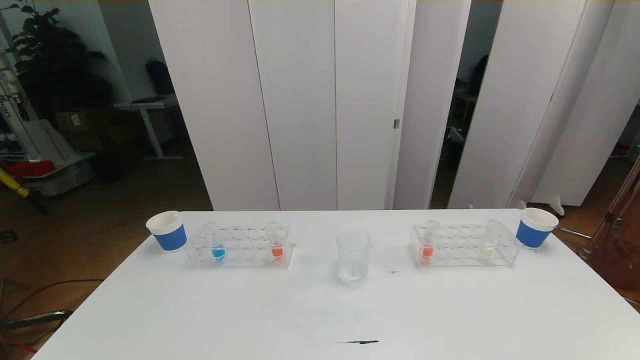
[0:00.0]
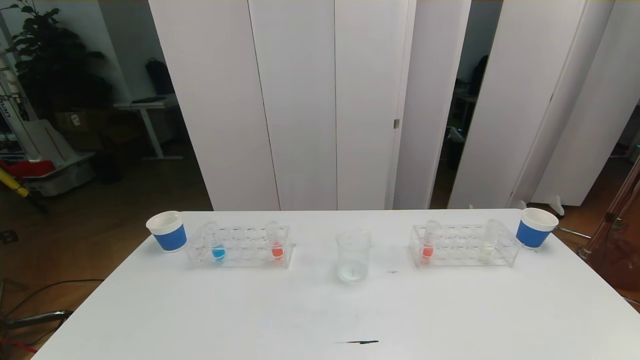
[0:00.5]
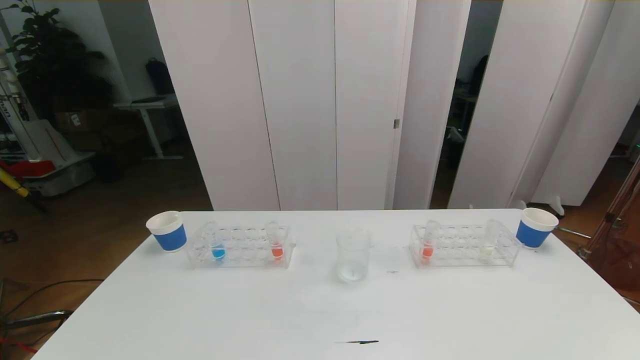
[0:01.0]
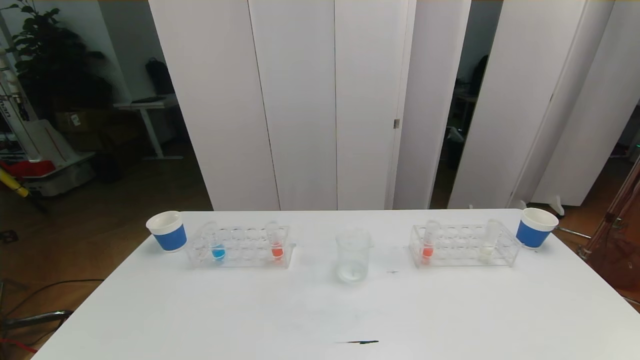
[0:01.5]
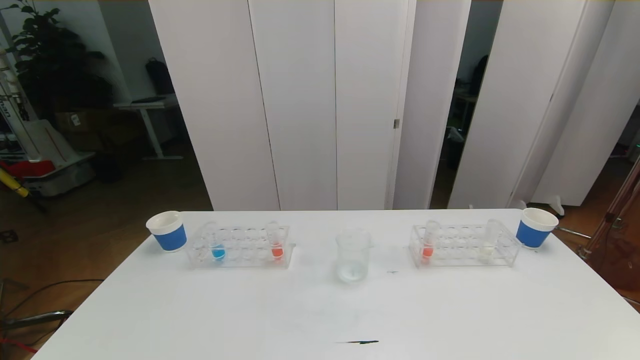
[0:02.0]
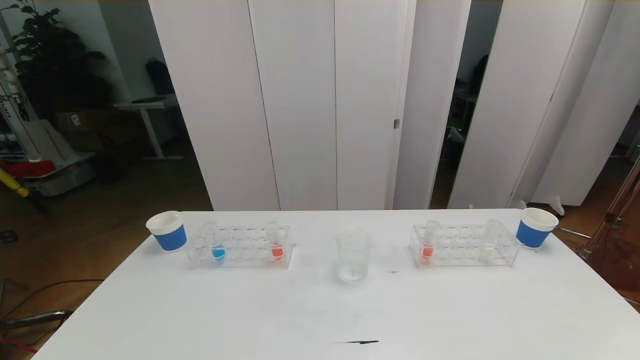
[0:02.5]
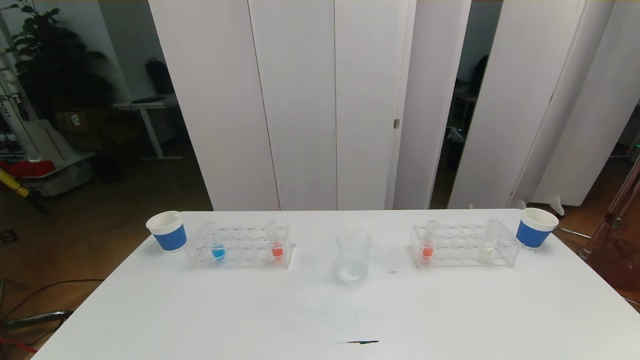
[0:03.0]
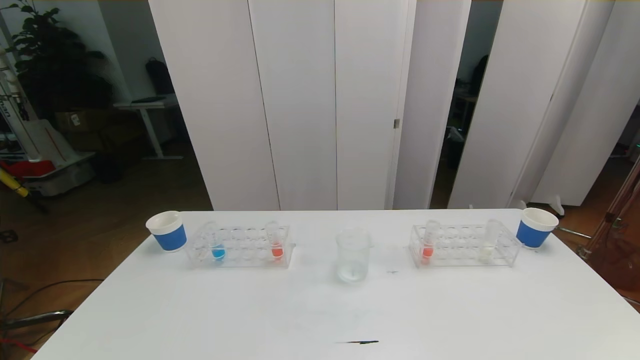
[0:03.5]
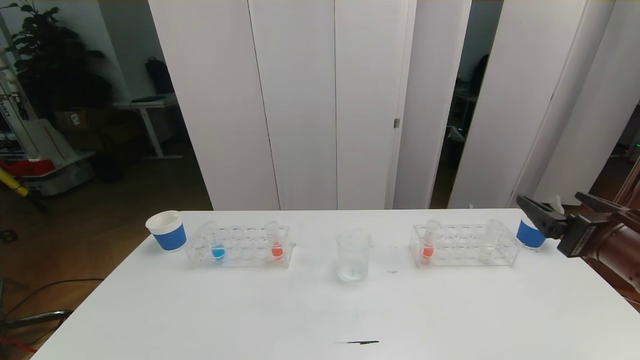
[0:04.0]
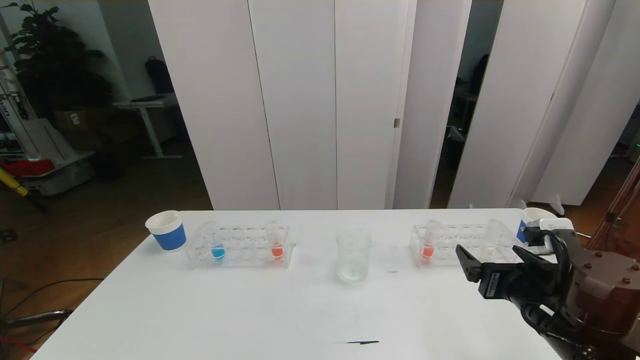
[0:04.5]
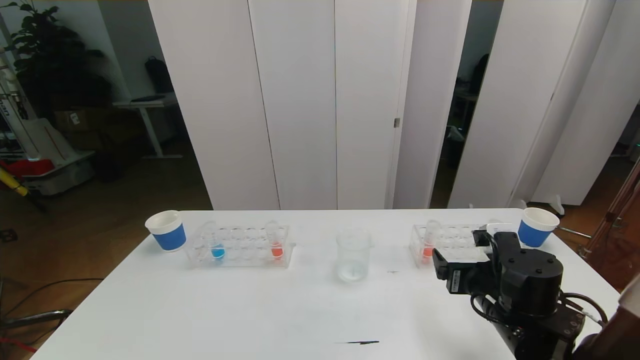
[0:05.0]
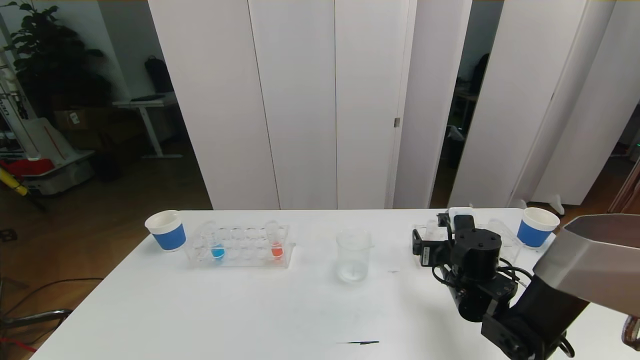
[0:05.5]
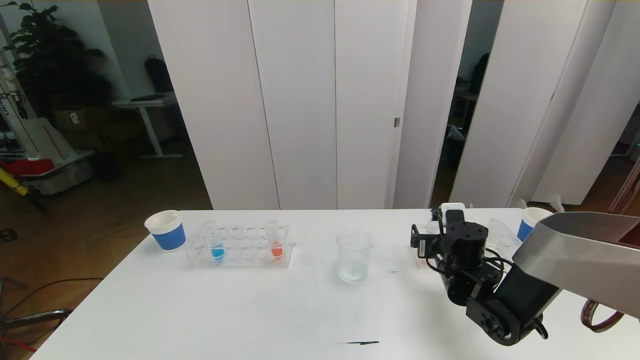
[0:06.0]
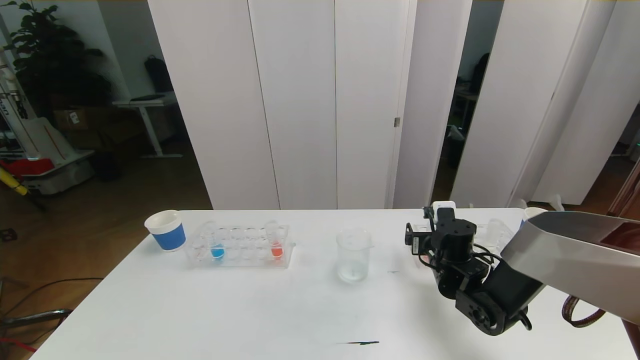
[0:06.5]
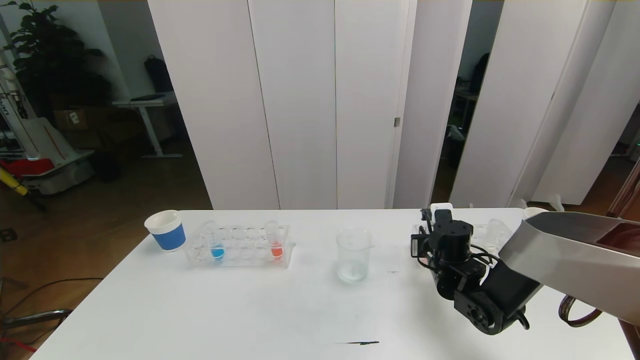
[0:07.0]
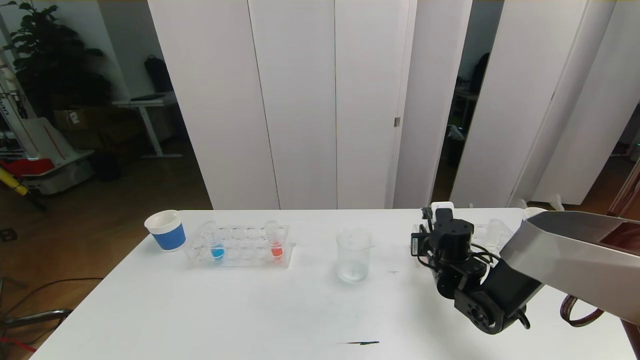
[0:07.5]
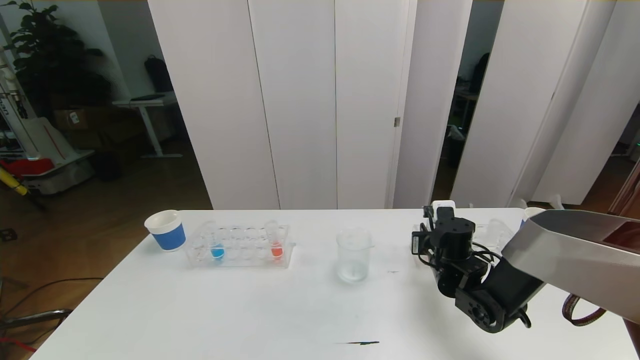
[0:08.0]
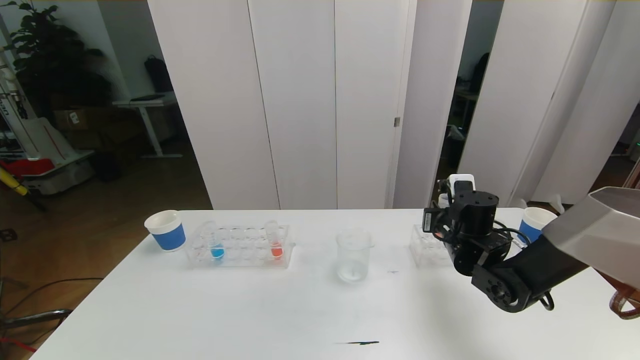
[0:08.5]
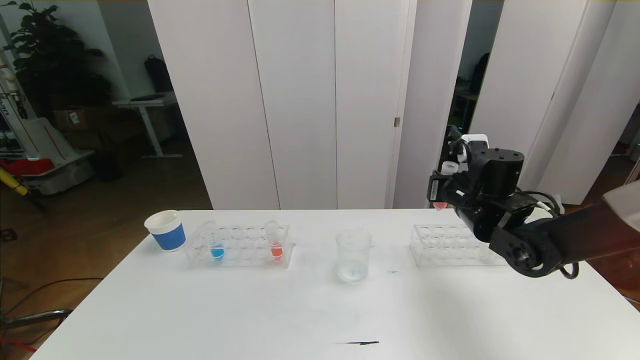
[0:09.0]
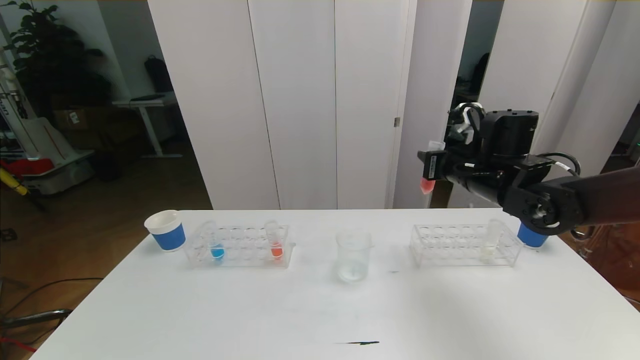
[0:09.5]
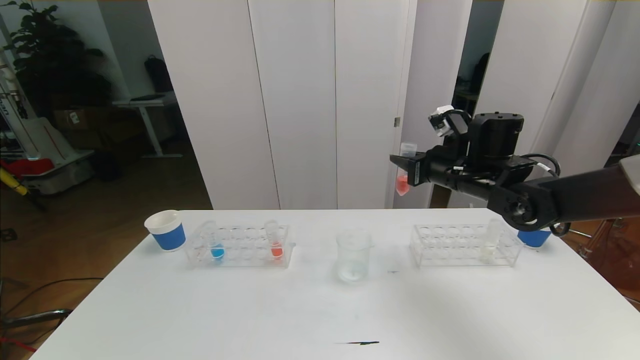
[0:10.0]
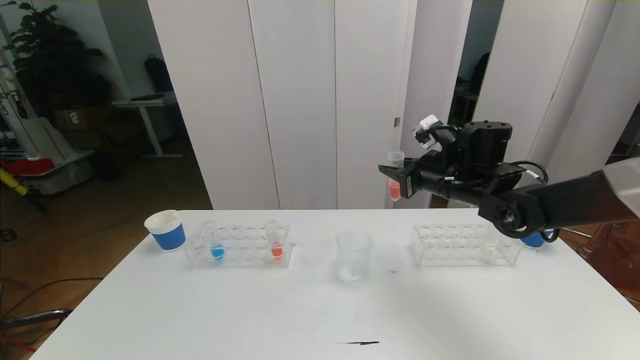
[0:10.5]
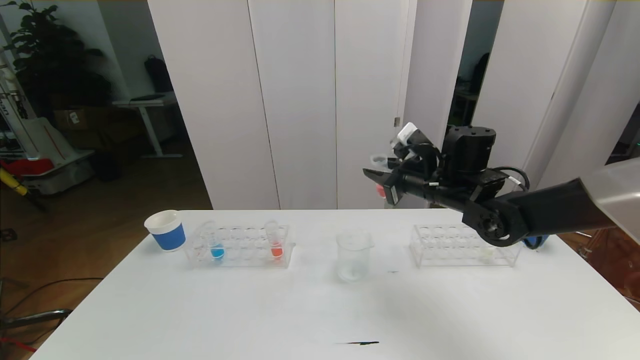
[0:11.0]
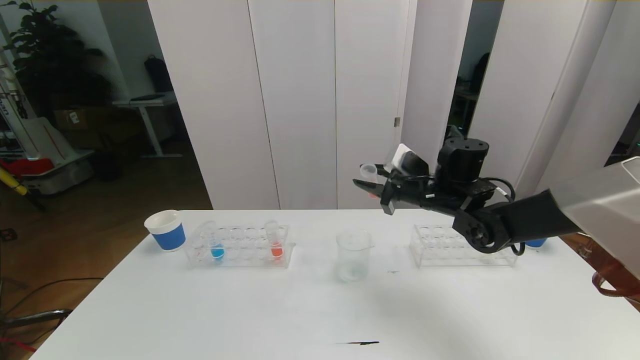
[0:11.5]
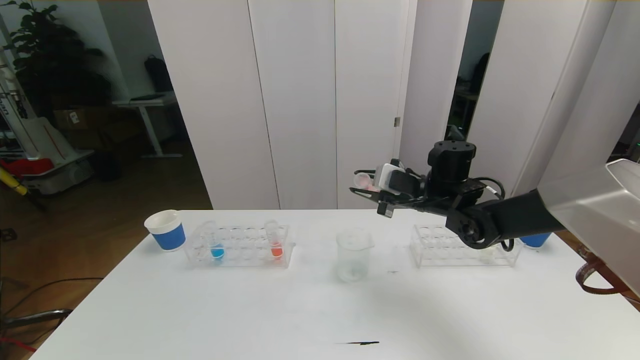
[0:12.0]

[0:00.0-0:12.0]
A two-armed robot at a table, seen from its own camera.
Task of the whole recording: pick up the test tube with red pigment the test tube with blue pigment and the test tube with white pigment by grippers and pour them into the beaker.
0:00.0 to 0:02.0: Both grippers stay about where they are.
0:02.0 to 0:04.0: The right gripper heads forward and upward, covering roughly 25 cm.
0:04.0 to 0:06.0: The right gripper moves forward, downward and to the left, about 25 cm.
0:06.0 to 0:08.0: The right gripper closes its fingers.
0:08.0 to 0:10.0: The right gripper goes about 15 cm upward.
0:10.0 to 0:12.0: The right gripper ends up approximately 5 cm from where it was.

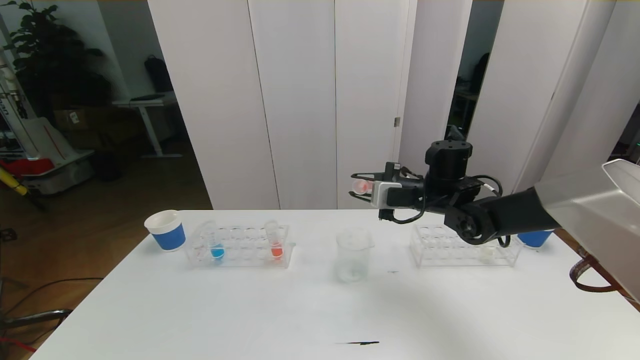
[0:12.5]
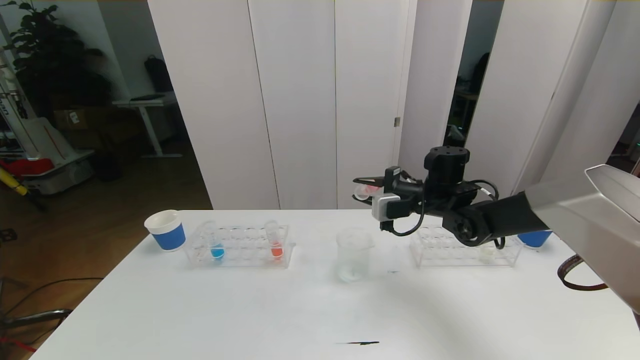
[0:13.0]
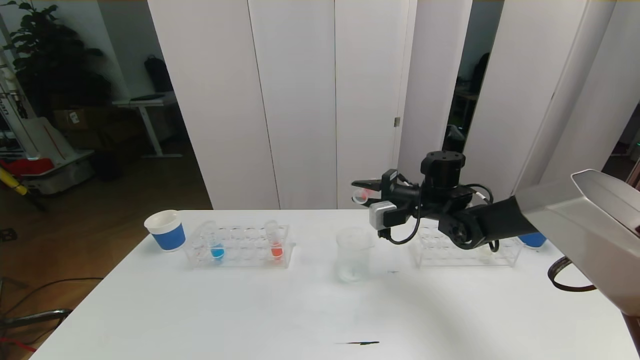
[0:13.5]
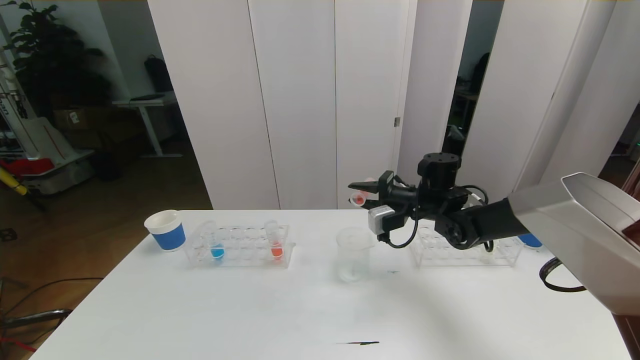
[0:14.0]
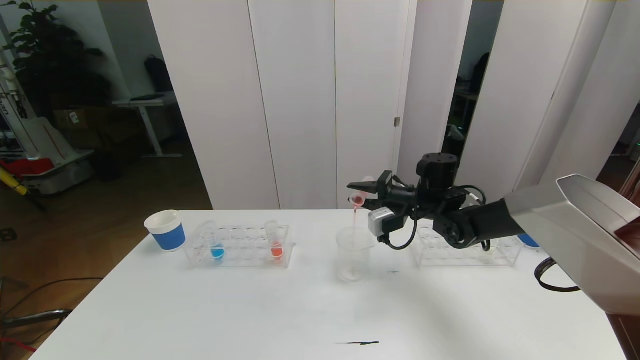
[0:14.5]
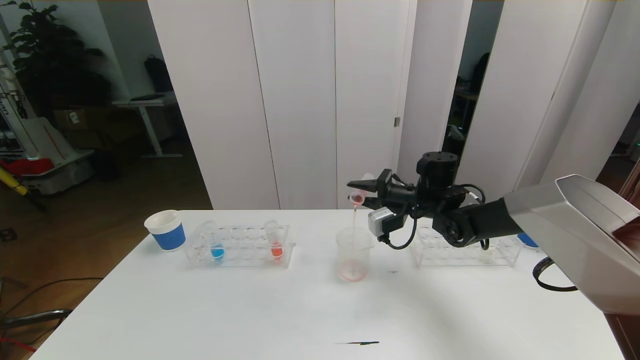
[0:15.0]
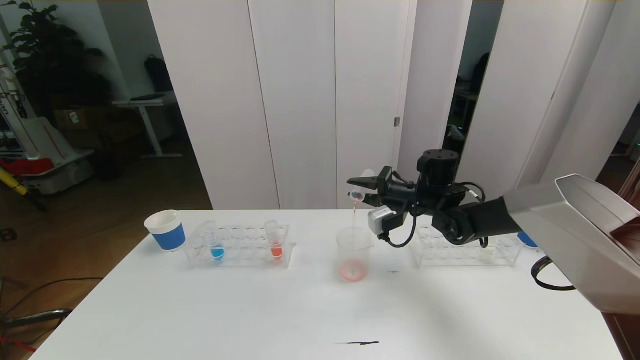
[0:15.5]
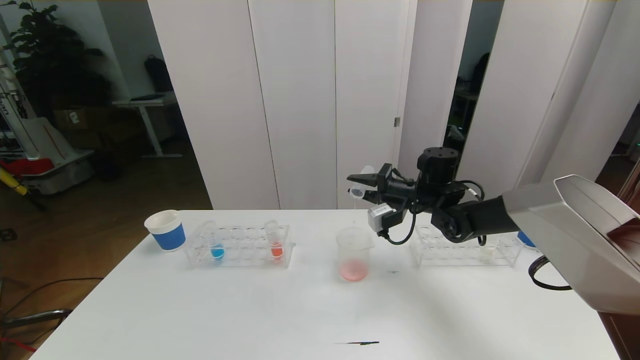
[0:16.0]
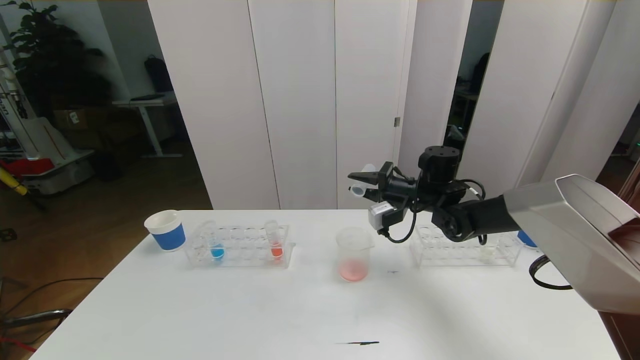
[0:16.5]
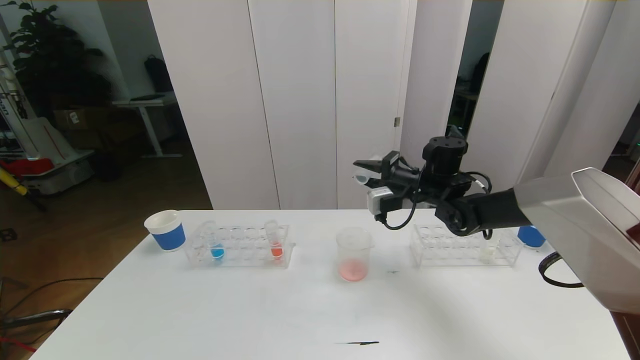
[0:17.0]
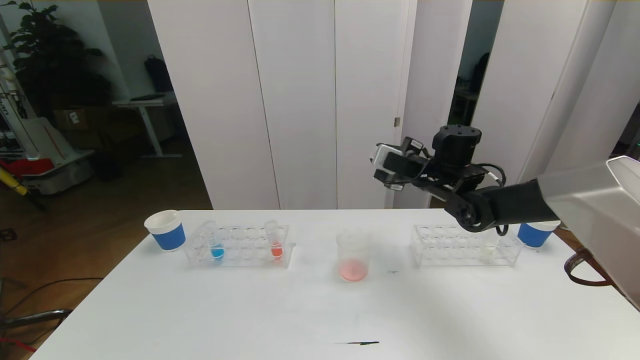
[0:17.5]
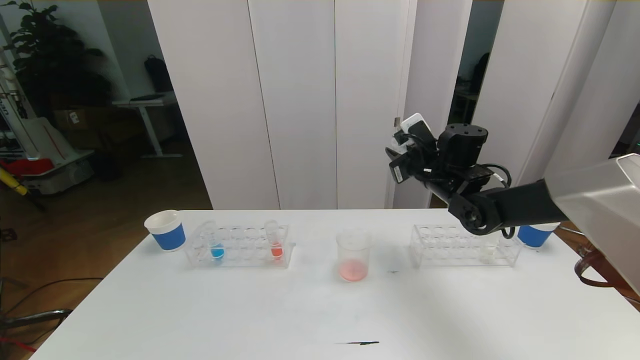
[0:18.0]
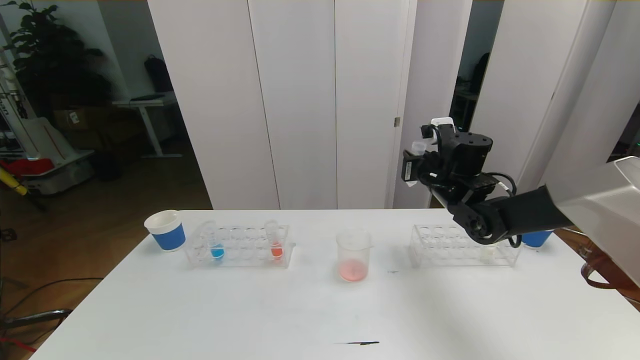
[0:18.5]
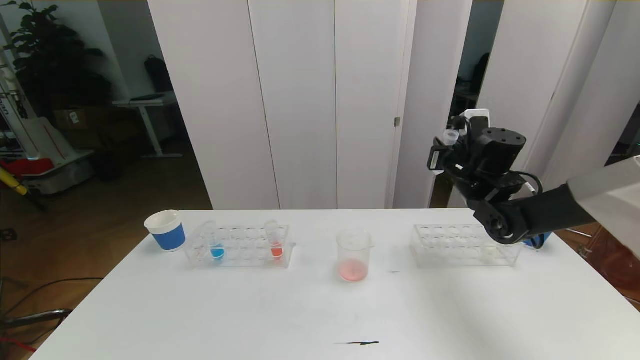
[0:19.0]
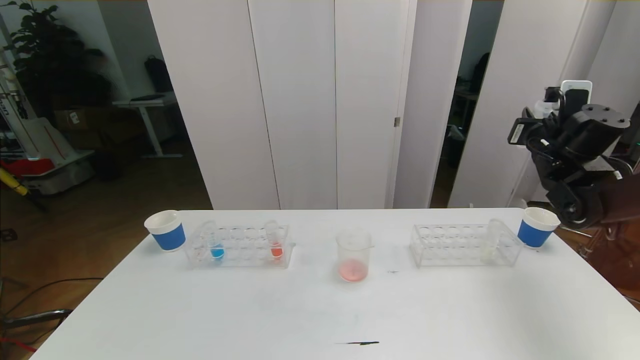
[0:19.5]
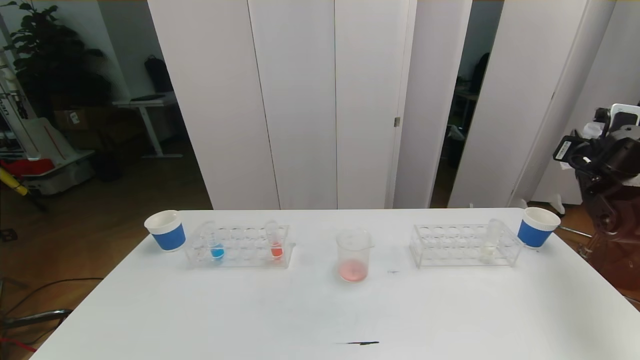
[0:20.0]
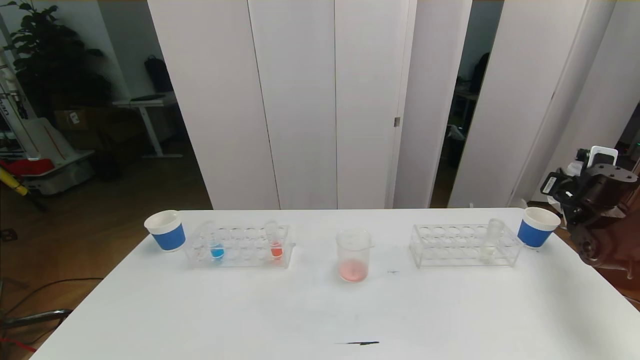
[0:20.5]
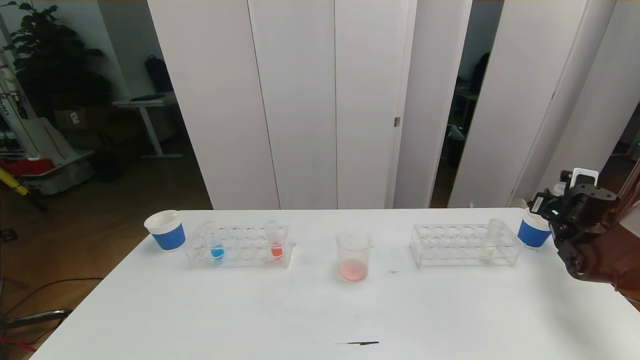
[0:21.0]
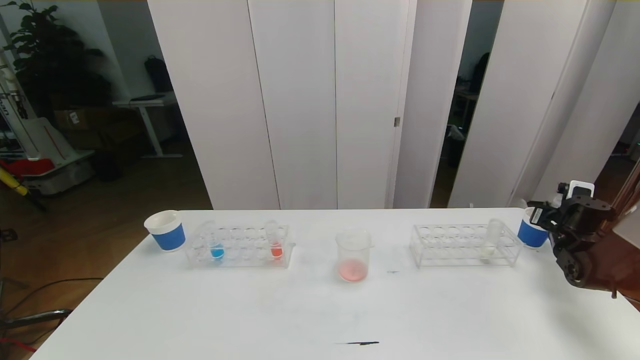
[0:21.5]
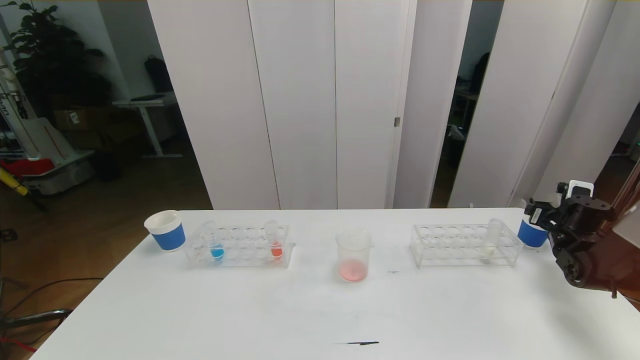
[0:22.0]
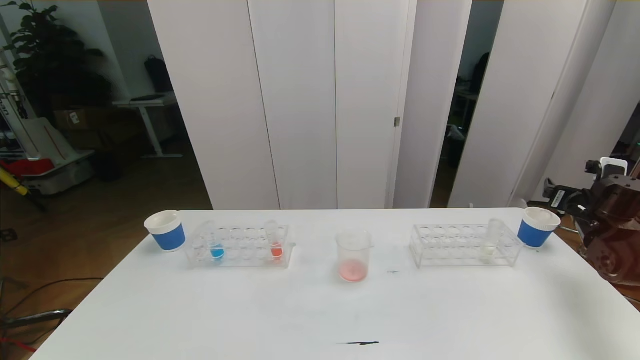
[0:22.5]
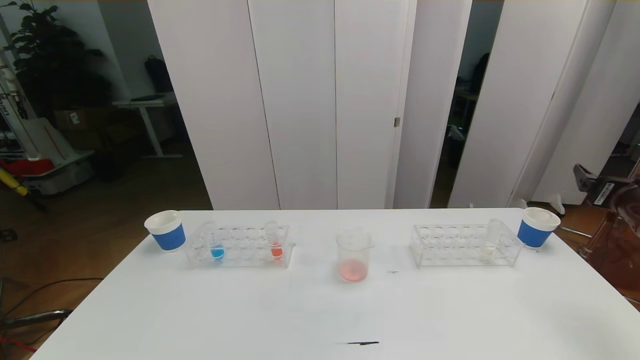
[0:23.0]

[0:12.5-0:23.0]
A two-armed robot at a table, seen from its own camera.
Task of the whole recording: pick up the test tube with red pigment the test tube with blue pigment and the test tube with white pigment by grippers and pour them into the beaker.
0:14.5 to 0:16.5: The grippers make only small movements.
0:16.5 to 0:19.0: The right gripper shifts approximately 10 cm to the right and upward.
0:19.0 to 0:21.0: The right gripper shifts about 25 cm to the right and downward.
0:21.0 to 0:23.0: The right gripper heads backward and upward, covering approximately 20 cm, and opens up.
